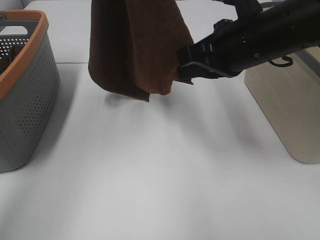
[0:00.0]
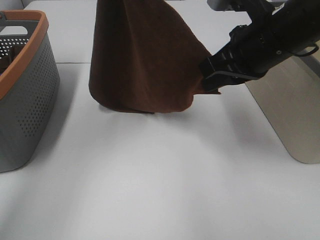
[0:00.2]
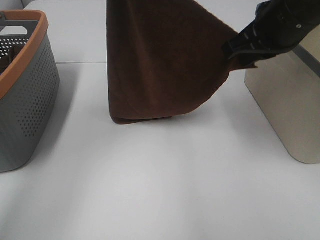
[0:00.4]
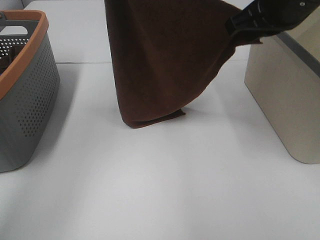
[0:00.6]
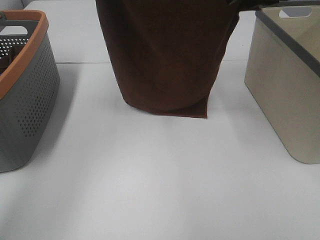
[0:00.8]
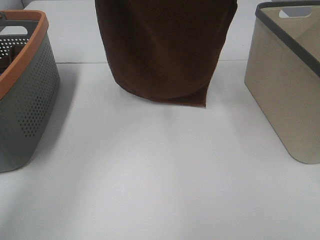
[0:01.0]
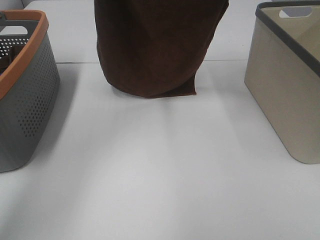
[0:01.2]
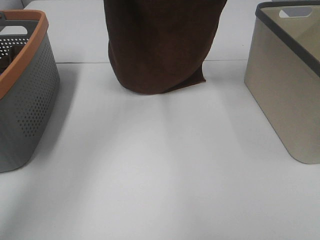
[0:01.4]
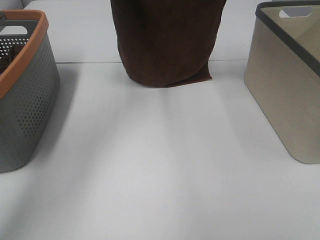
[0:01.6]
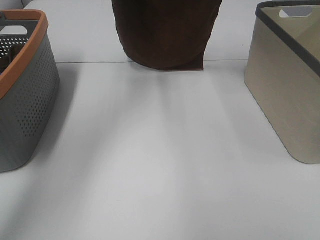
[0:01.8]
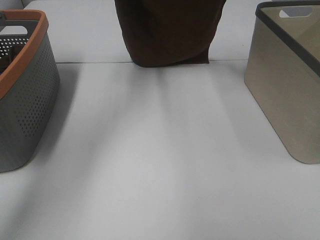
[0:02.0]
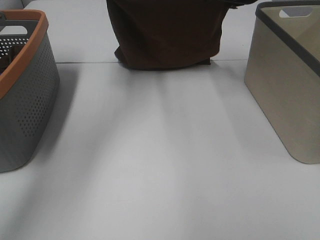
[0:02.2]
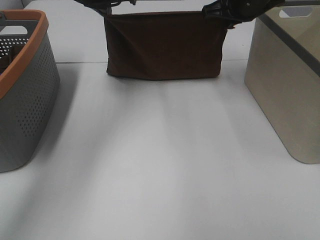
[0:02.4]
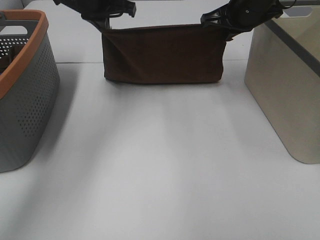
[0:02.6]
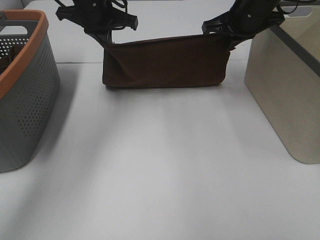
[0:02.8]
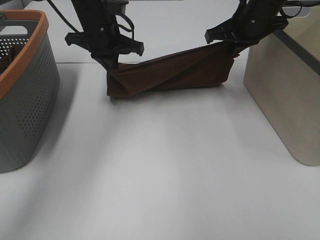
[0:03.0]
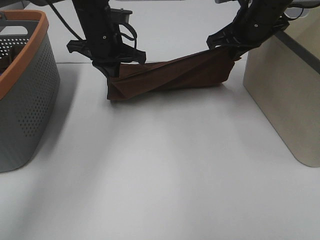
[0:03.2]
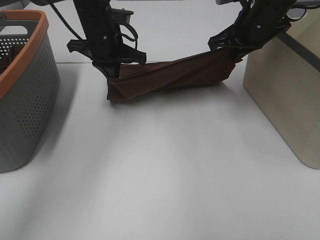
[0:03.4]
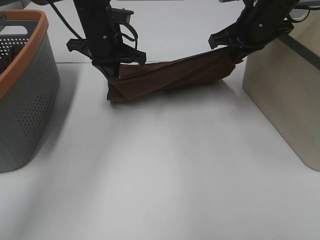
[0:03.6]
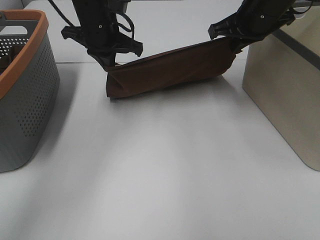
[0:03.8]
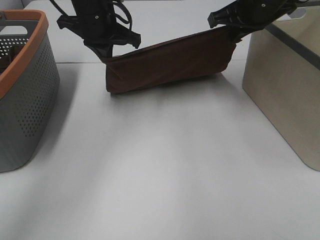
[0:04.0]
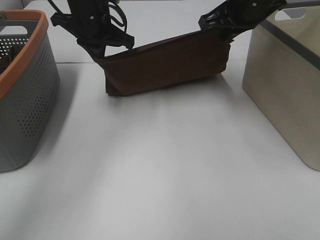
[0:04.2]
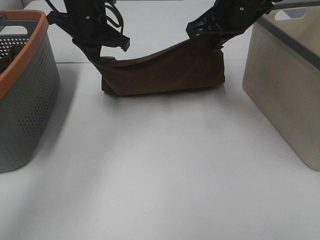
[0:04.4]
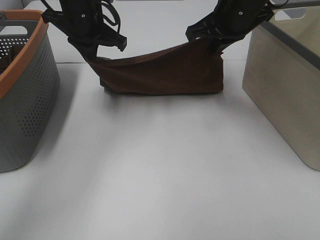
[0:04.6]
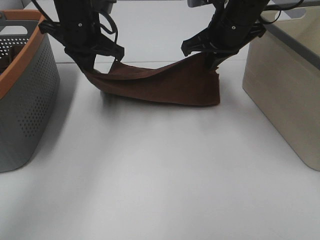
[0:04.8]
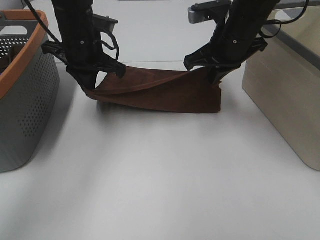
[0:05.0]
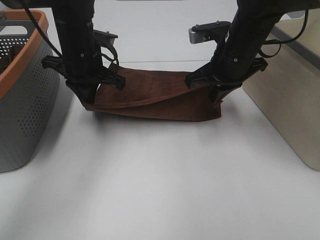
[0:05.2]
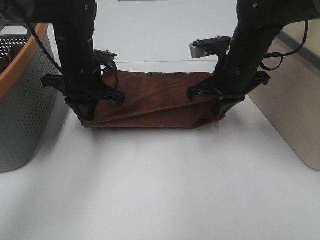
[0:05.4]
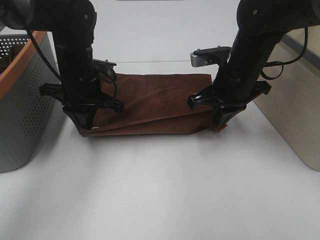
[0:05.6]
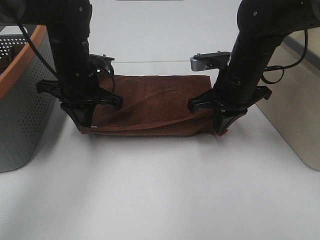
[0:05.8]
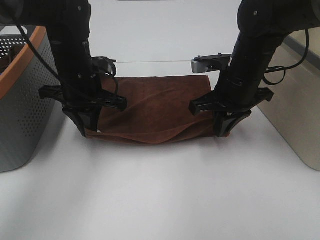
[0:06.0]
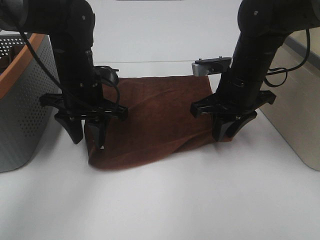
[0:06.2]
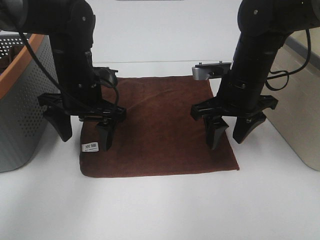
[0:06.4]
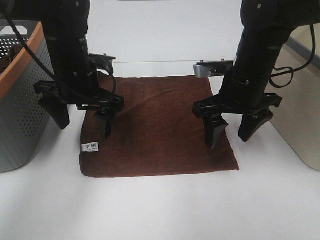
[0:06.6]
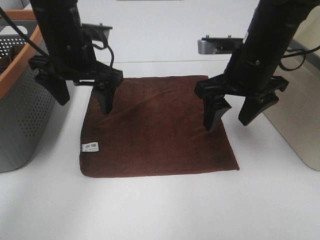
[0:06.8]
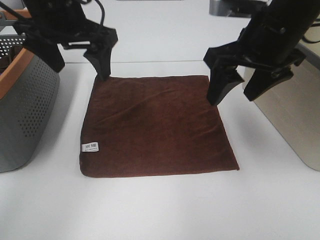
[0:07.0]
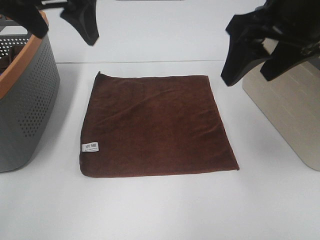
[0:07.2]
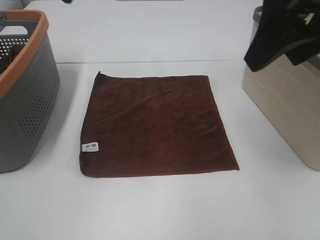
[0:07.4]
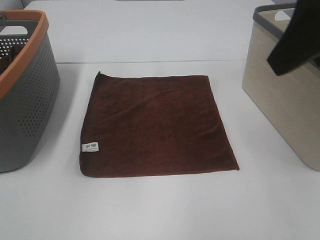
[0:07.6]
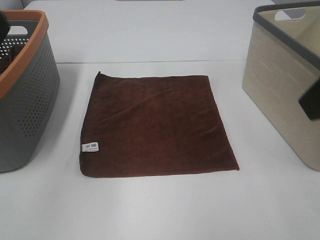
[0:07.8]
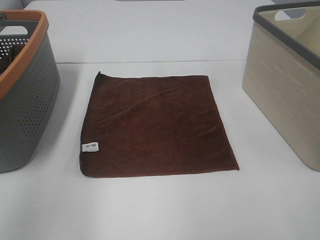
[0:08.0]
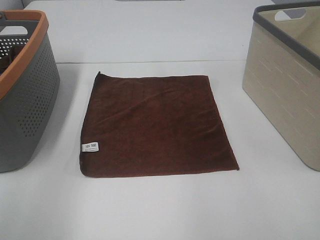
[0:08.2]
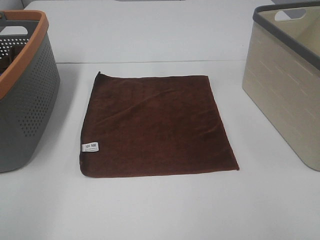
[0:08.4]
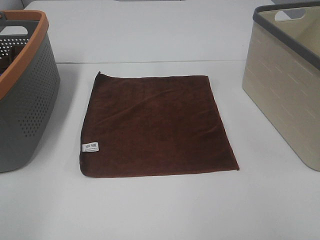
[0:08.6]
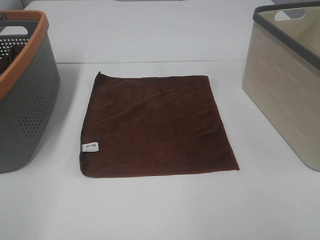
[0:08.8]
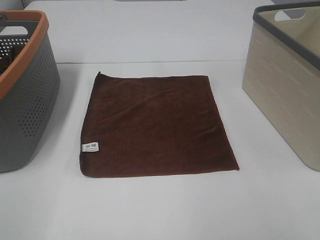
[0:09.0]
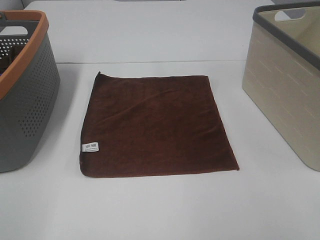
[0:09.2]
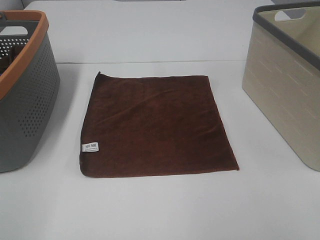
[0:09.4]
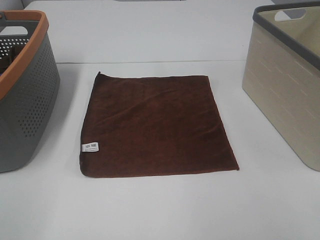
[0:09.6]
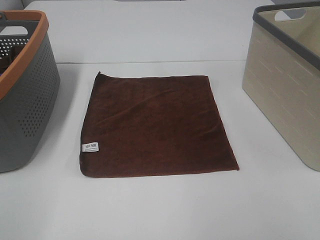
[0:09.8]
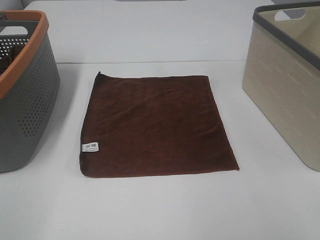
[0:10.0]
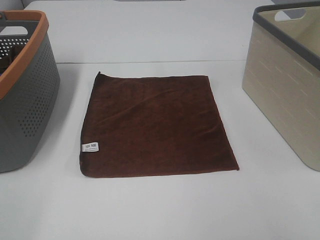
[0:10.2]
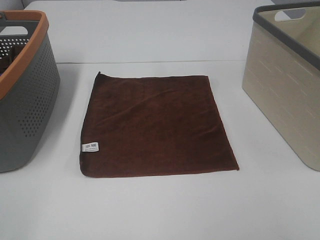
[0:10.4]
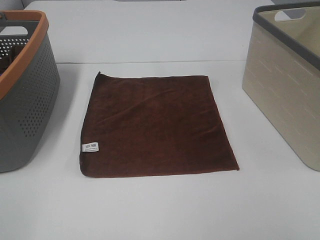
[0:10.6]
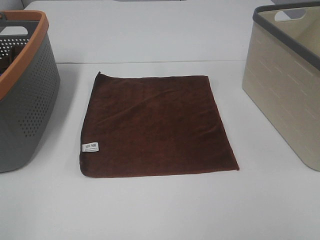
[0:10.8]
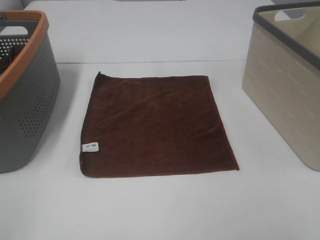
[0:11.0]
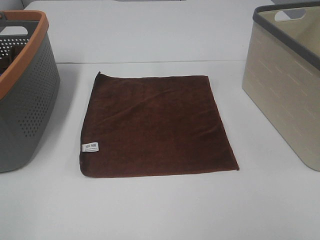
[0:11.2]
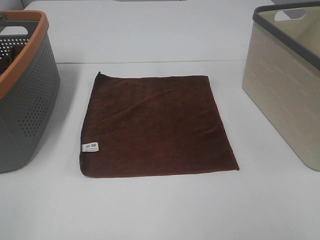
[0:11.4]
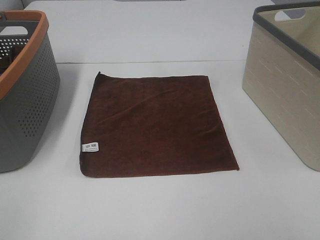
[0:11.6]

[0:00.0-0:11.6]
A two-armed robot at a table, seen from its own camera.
Task of the whole recording: Remove the towel and place it.
0:00.0 to 0:01.4: The left gripper travels downward and forward by some 10 cm. The right gripper heads forward and upward, covering about 15 cm.
0:01.4 to 0:02.8: The two grippers go some 10 cm downward.
0:02.8 to 0:04.4: The right gripper is displaced backward by approximately 5 cm.
0:04.4 to 0:05.8: The grippers both shift downward and backward by approximately 10 cm.
0:05.8 to 0:07.2: The left gripper goes about 20 cm upward, and opens. The right gripper goes roughly 20 cm upward and backward, and opens up.
0:07.2 to 0:08.8: The right gripper heads backward and to the right, covering approximately 25 cm. The left gripper is displaced backward and to the left by about 35 cm.
